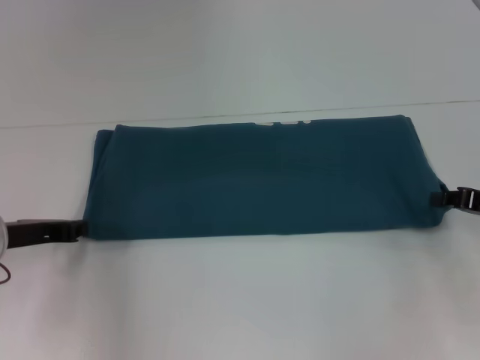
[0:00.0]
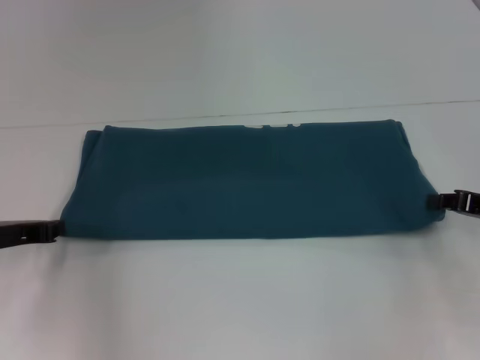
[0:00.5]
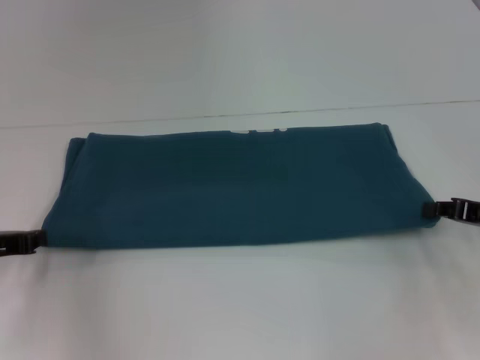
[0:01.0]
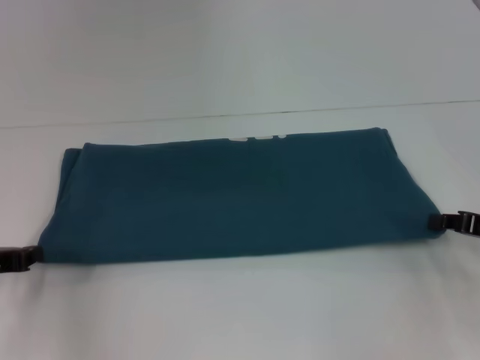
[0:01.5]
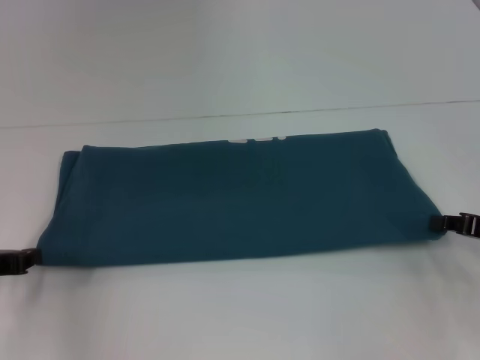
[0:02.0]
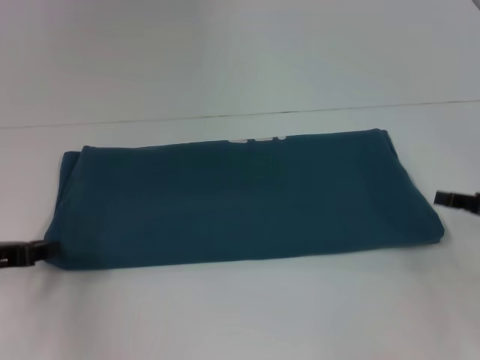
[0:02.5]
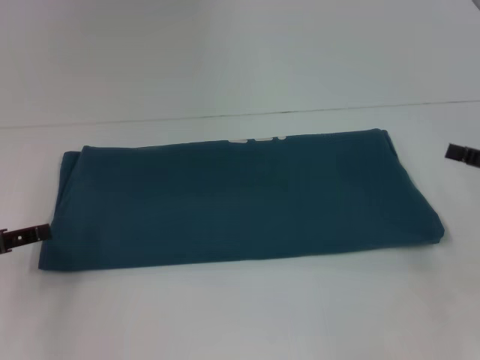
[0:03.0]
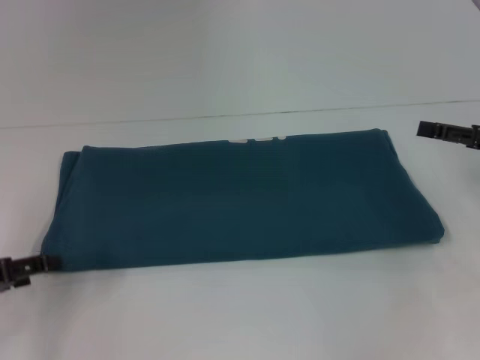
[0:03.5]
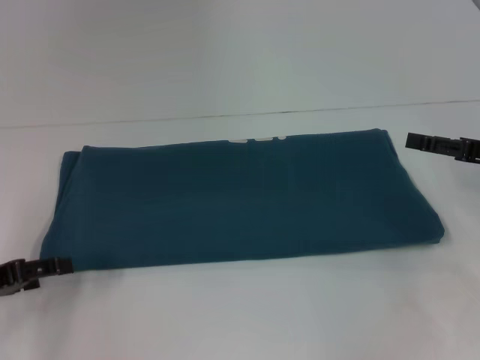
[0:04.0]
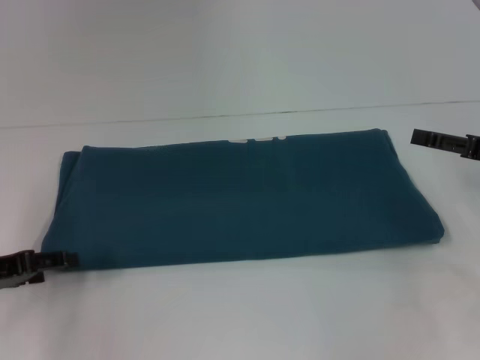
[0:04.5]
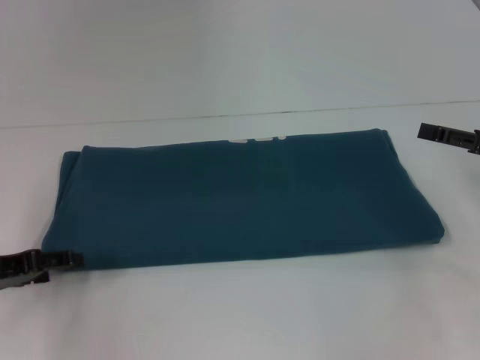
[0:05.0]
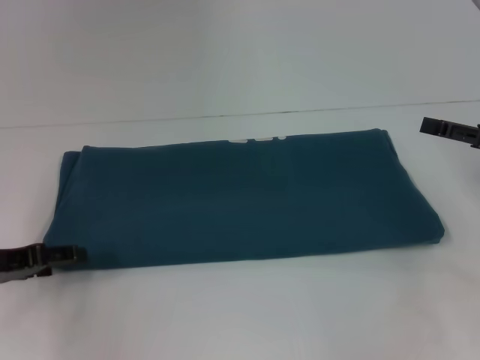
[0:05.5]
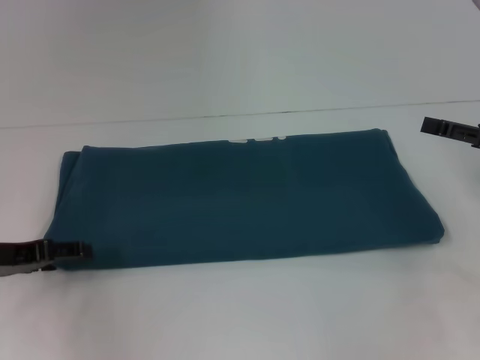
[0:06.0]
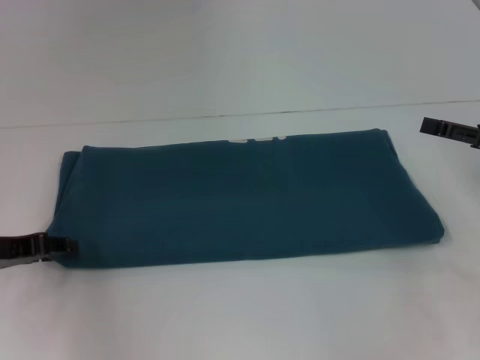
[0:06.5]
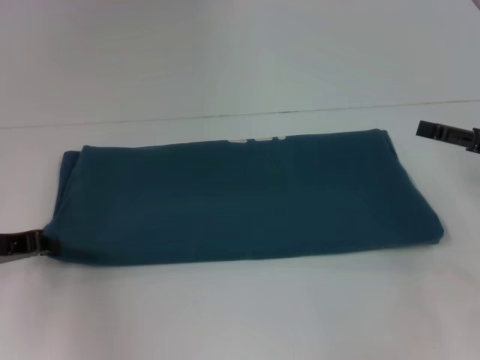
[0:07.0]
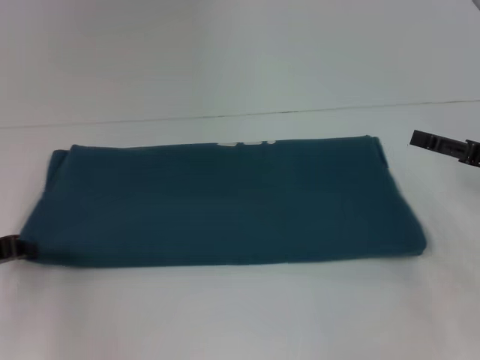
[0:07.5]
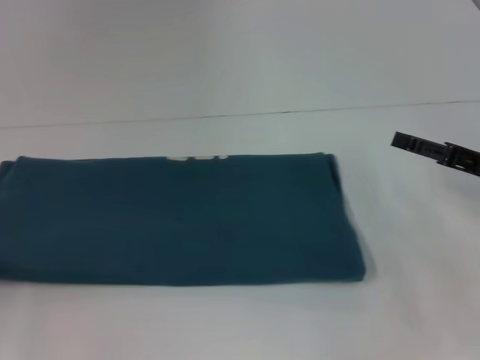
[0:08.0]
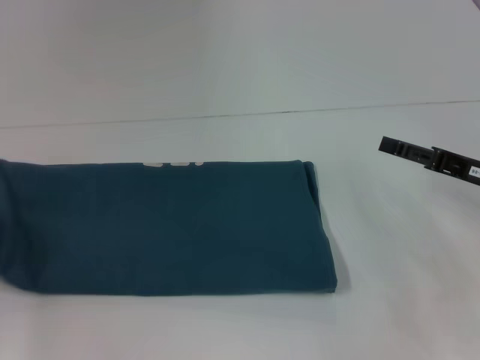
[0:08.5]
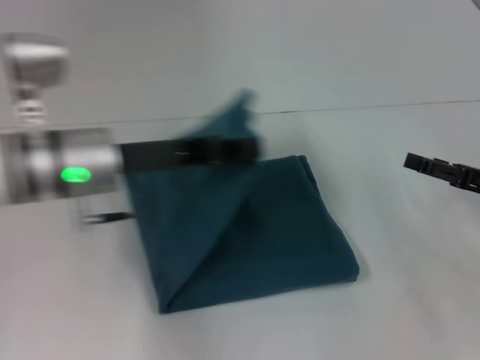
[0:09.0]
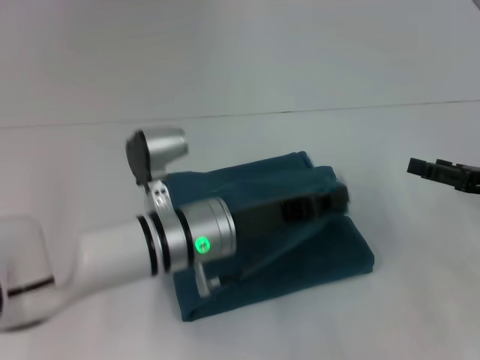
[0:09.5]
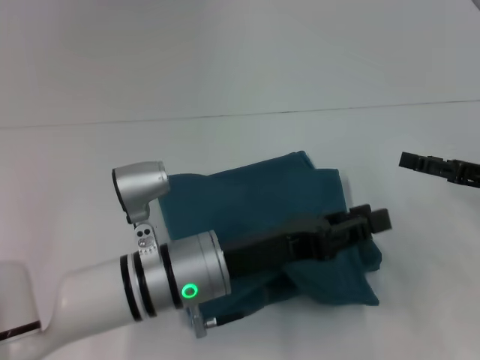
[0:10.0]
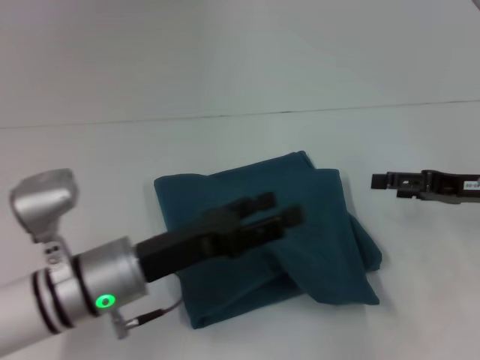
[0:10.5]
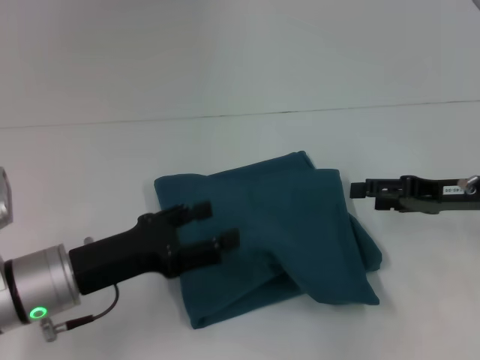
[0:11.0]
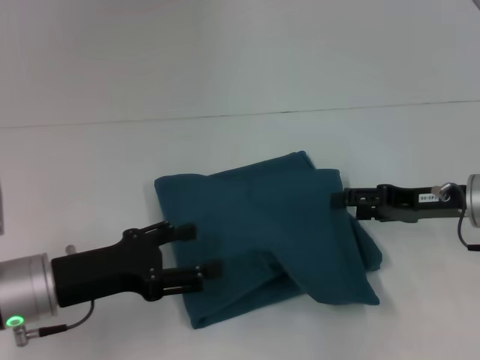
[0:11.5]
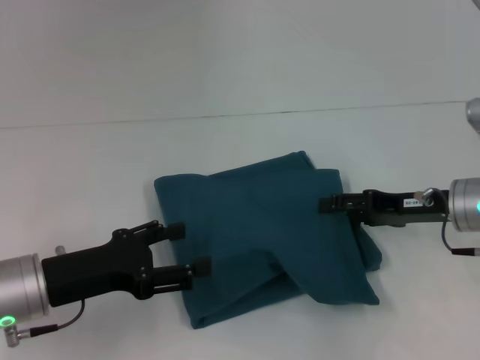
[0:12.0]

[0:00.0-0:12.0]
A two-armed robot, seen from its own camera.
Step, 0.0 to 10.0 s: Fold the clothes to the left.
0.0 to 2.0 s: The left gripper moves some 5 cm.
2.0 to 4.0 s: The left gripper opens up; the right gripper travels upward by about 5 cm, and opens up.
4.0 to 6.0 s: There are only small adjustments of the grippers.
6.0 to 8.0 s: The left gripper travels to the left by approximately 10 cm, and closes.
8.0 to 10.0 s: The left gripper shifts about 30 cm to the right.
10.0 to 12.0 s: The right gripper moves to the left, some 10 cm, while the left gripper travels to the left by about 15 cm, and opens.

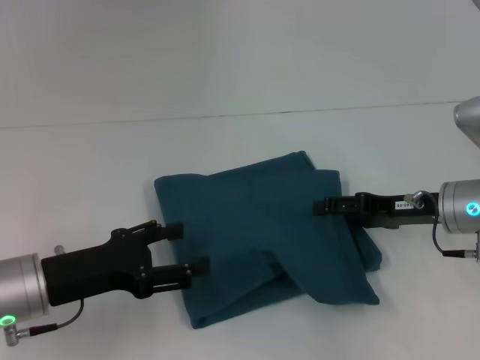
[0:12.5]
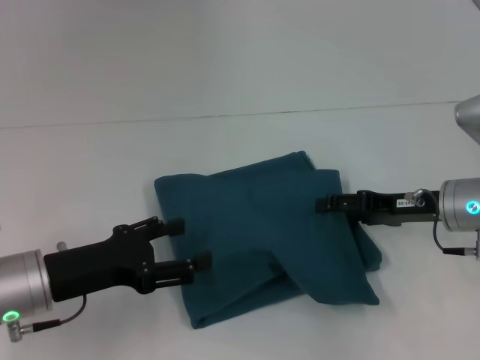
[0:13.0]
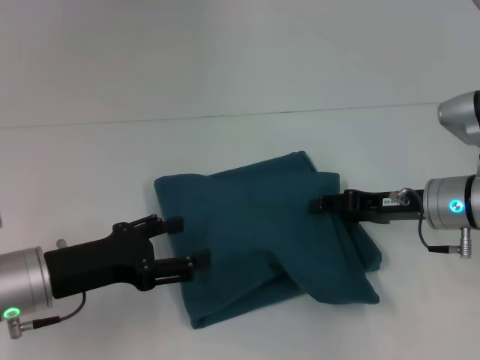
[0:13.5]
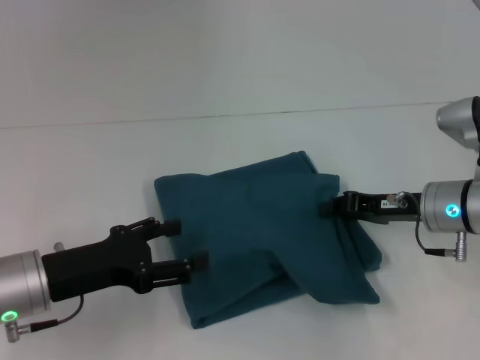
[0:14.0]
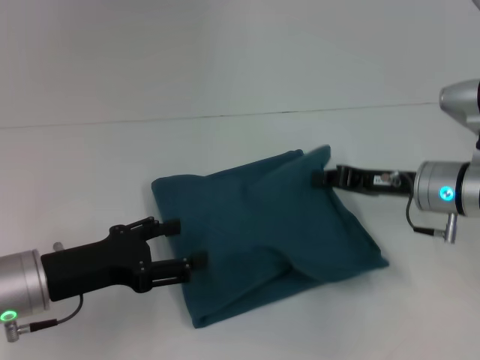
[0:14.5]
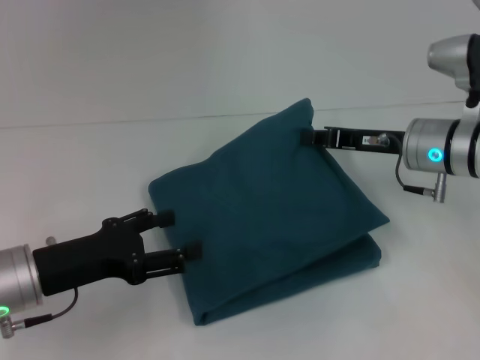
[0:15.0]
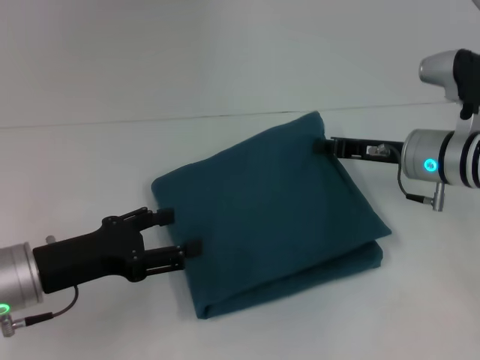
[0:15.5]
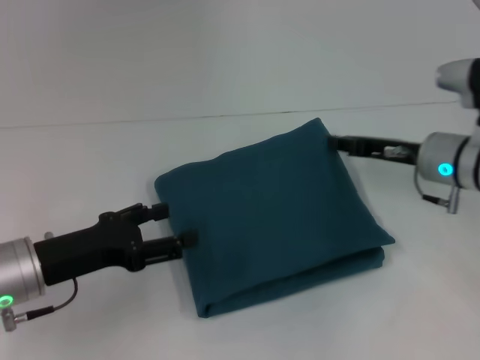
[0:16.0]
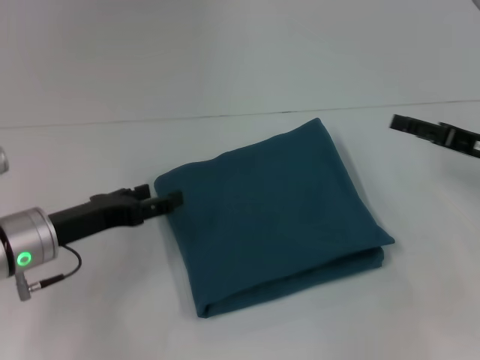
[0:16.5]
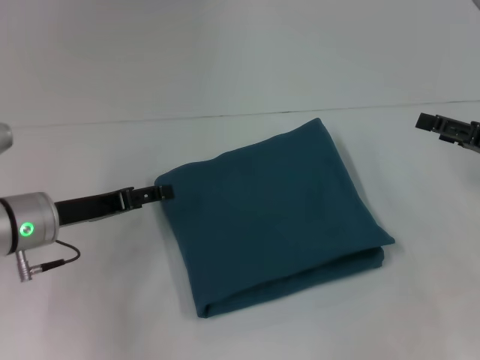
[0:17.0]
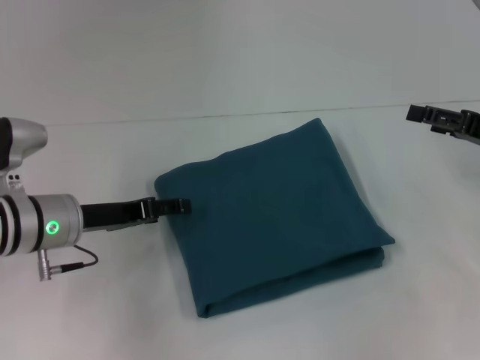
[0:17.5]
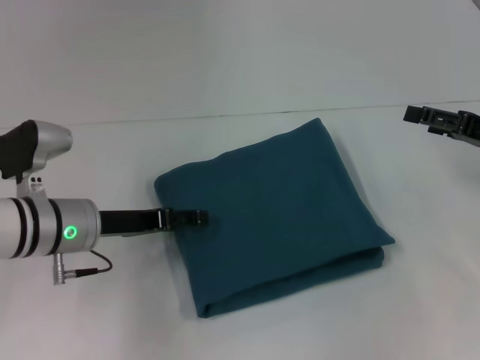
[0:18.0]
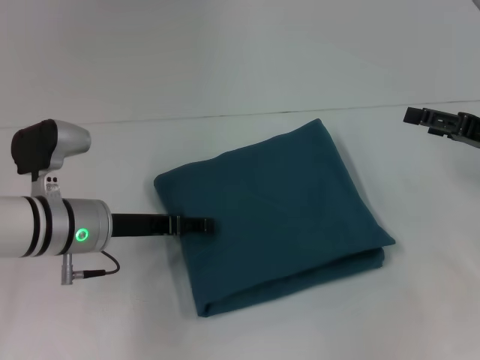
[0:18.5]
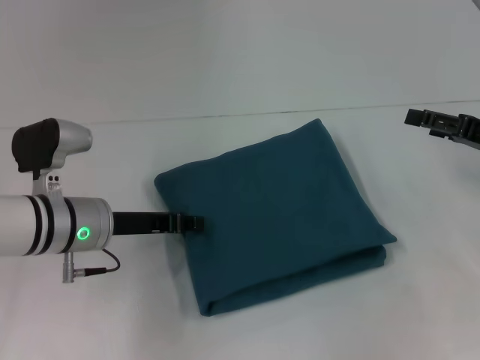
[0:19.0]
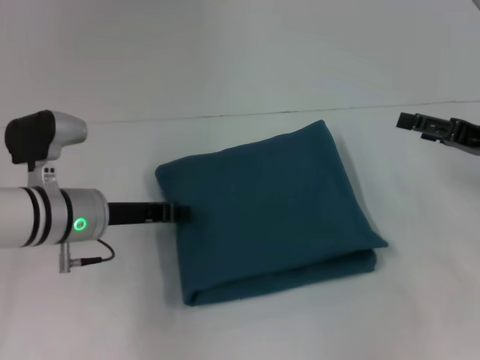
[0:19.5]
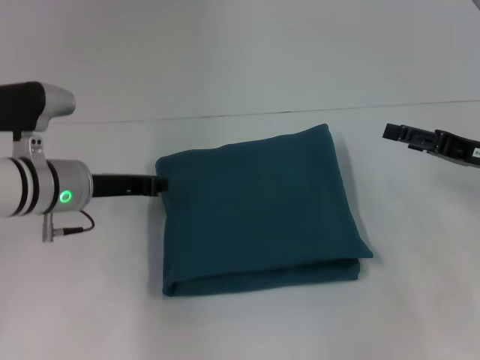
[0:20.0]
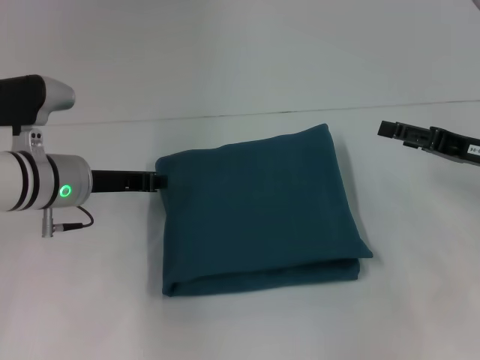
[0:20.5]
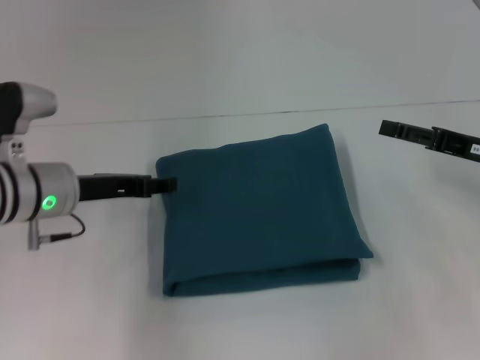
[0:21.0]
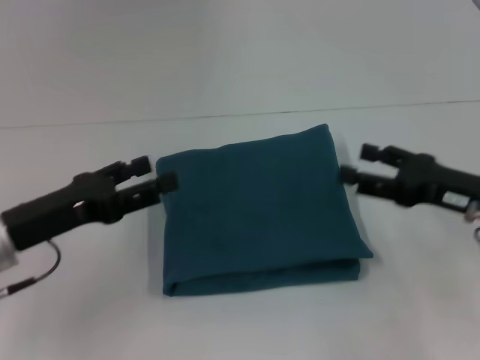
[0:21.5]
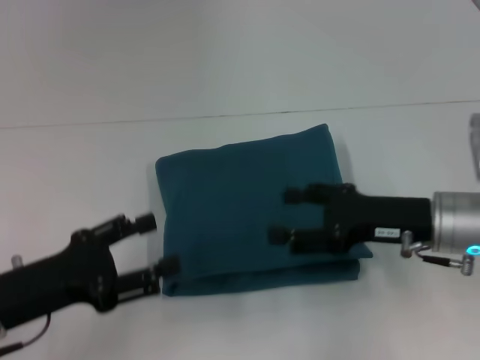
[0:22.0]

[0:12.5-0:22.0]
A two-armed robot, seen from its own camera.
12.5 to 14.5 s: The right gripper closes.
14.5 to 16.5 s: The right gripper moves to the right, approximately 10 cm, and opens up.
18.0 to 20.0 s: The left gripper closes.
20.0 to 22.0 s: The right gripper is displaced to the left by some 10 cm, while the left gripper moves backward, roughly 15 cm, and opens.

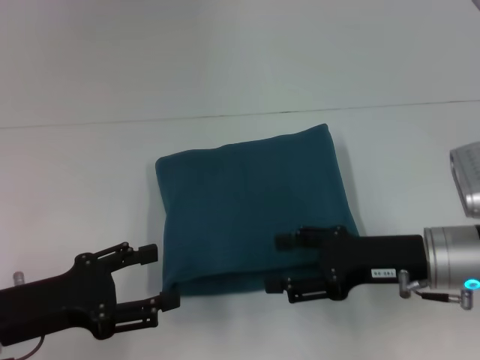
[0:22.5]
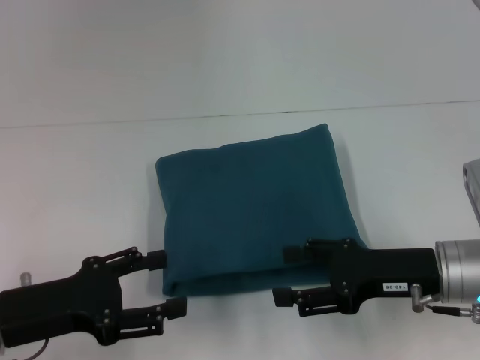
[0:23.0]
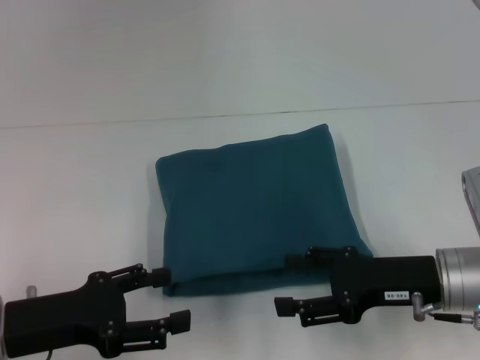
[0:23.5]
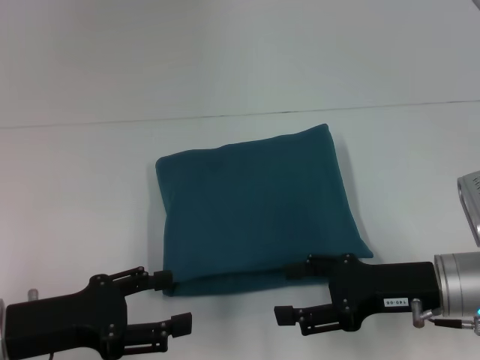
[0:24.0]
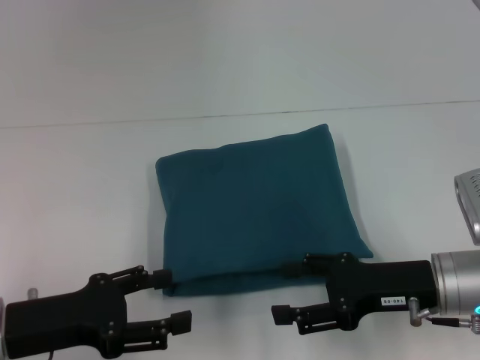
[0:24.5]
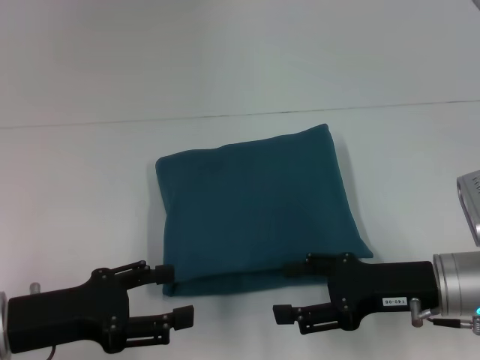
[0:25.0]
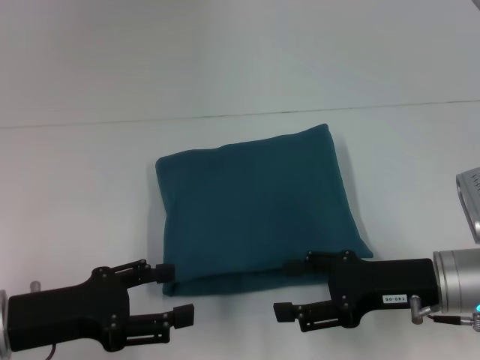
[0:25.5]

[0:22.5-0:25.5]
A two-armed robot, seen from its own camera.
22.5 to 24.0 s: The grippers move only a little.
24.0 to 25.5 s: Neither gripper changes place.

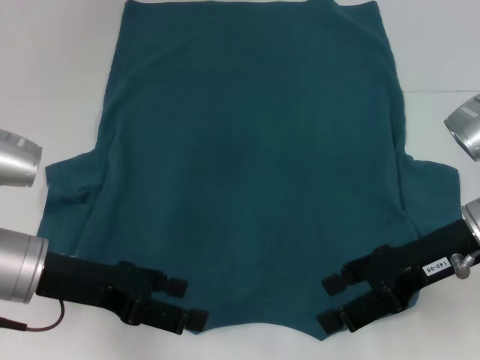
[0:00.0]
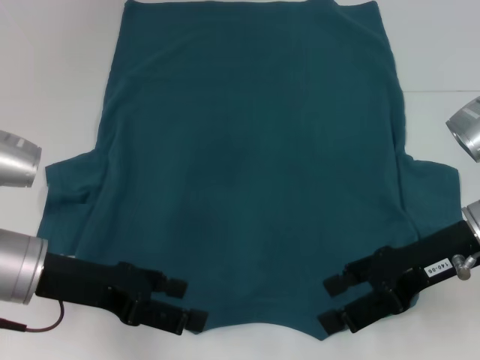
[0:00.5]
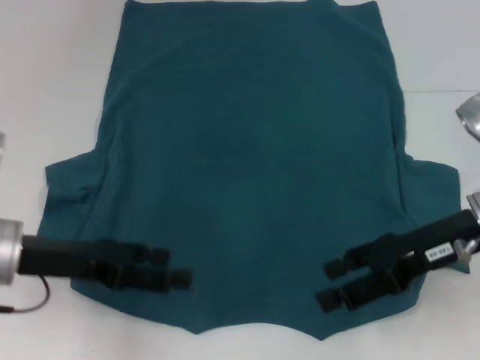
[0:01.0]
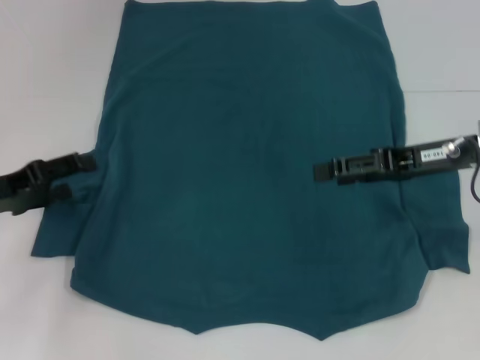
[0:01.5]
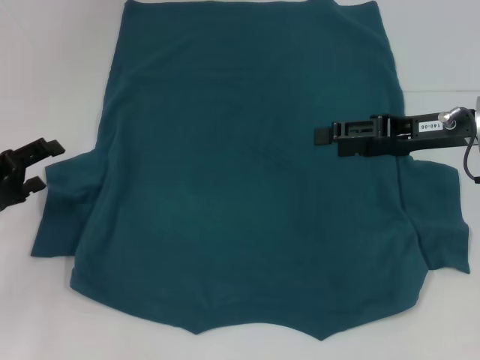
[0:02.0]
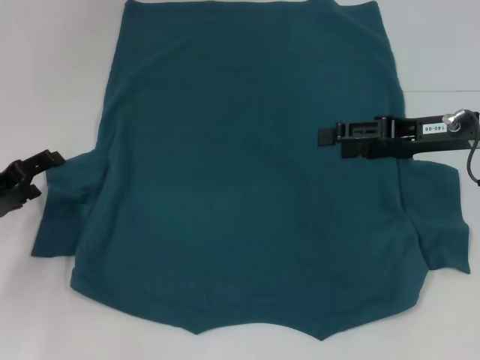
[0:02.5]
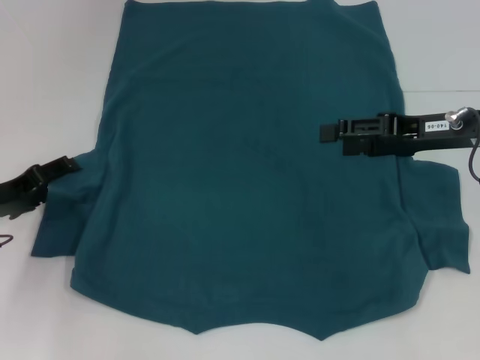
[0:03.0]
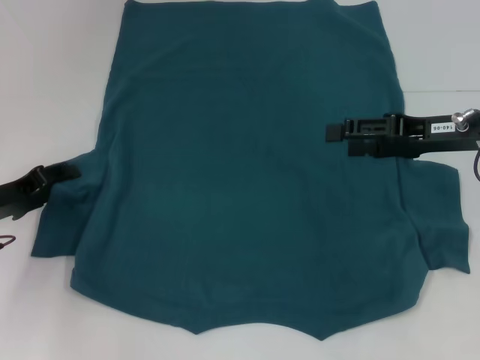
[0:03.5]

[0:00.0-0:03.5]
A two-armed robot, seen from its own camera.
0.0 to 2.0 s: The left gripper heads to the left, covering roughly 10 cm. Meanwhile the right gripper heads forward, covering roughly 5 cm.
2.0 to 3.5 s: The grippers stay close to where they were, moving slightly.
